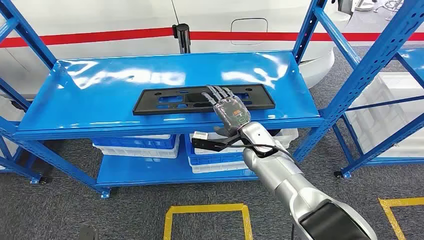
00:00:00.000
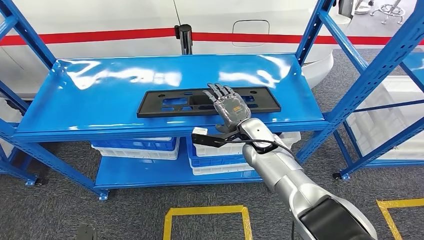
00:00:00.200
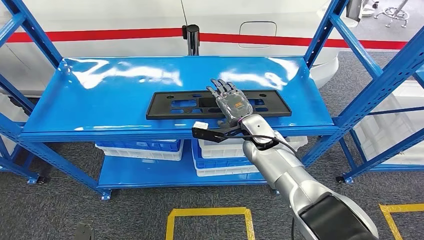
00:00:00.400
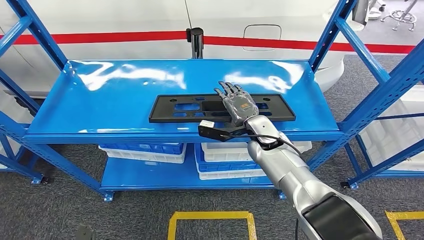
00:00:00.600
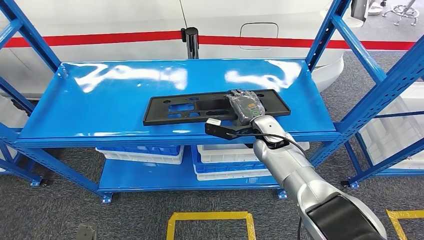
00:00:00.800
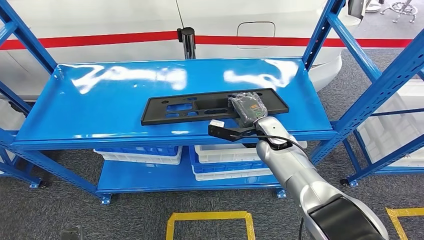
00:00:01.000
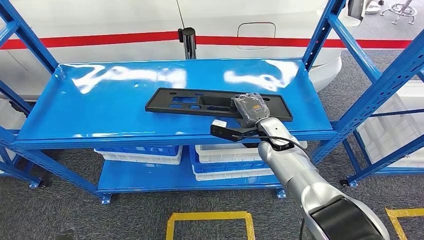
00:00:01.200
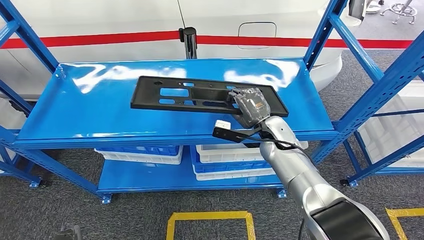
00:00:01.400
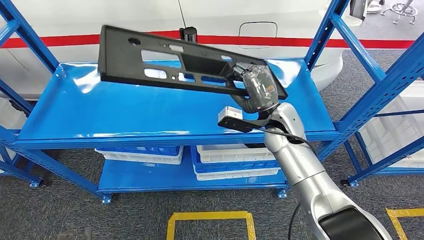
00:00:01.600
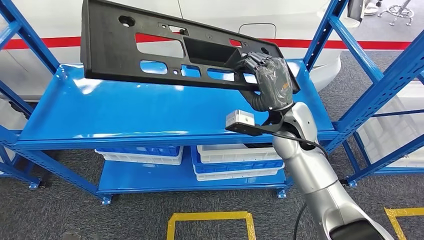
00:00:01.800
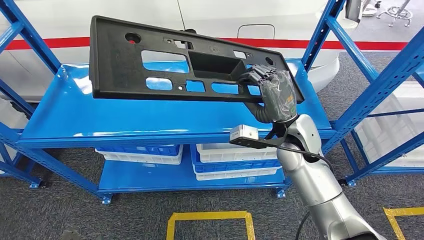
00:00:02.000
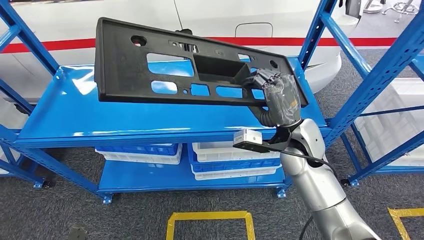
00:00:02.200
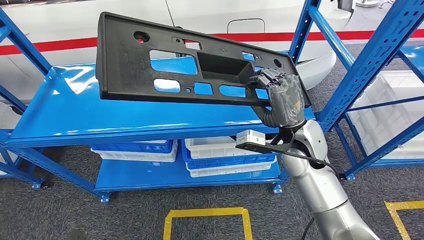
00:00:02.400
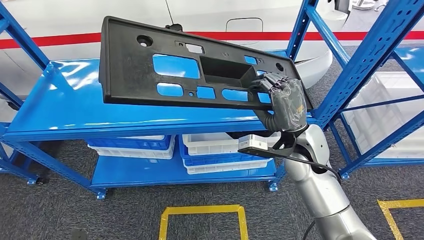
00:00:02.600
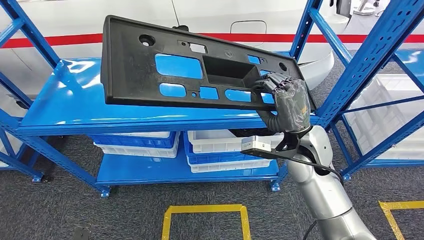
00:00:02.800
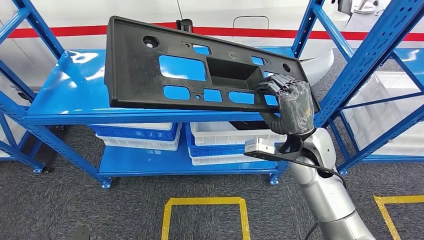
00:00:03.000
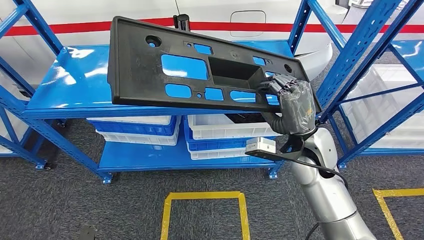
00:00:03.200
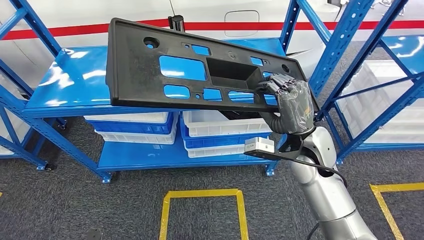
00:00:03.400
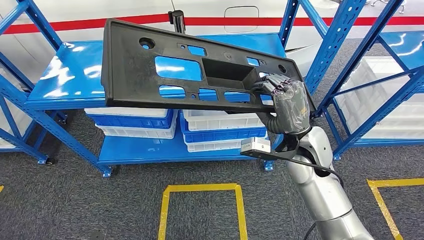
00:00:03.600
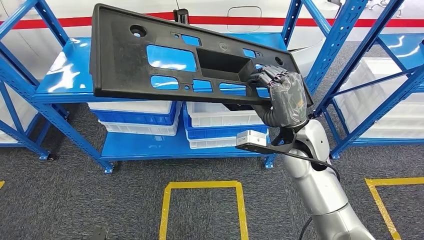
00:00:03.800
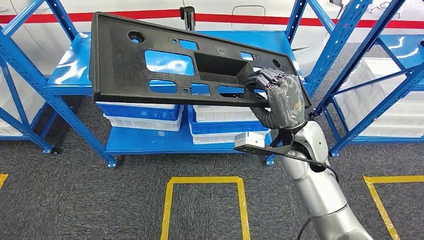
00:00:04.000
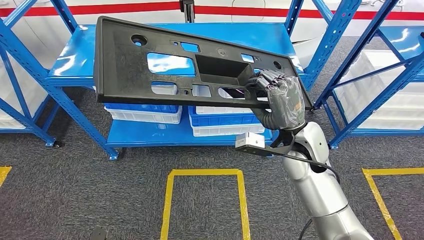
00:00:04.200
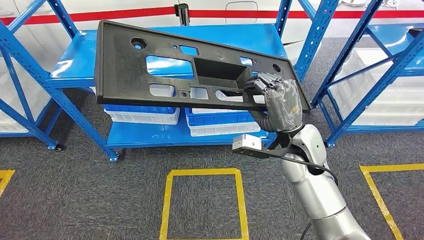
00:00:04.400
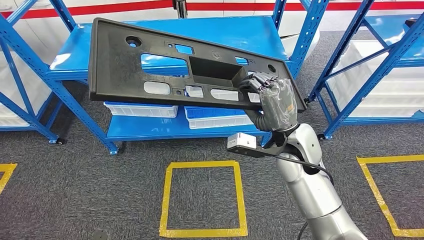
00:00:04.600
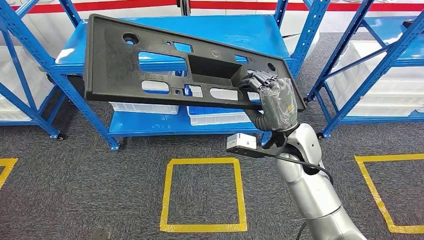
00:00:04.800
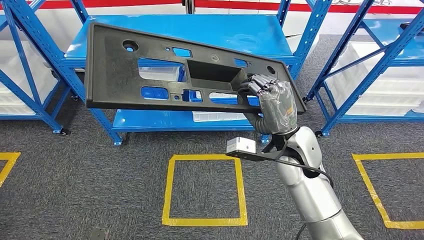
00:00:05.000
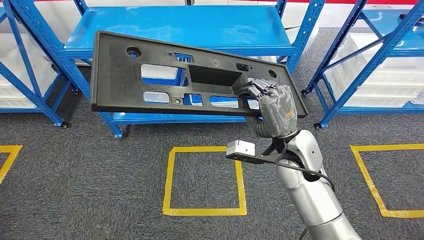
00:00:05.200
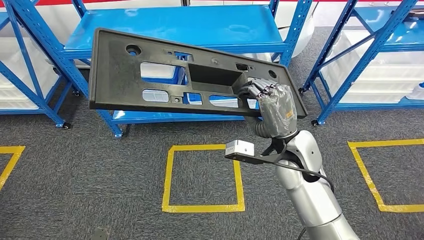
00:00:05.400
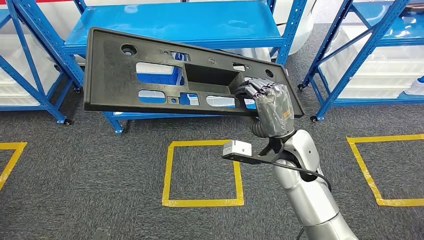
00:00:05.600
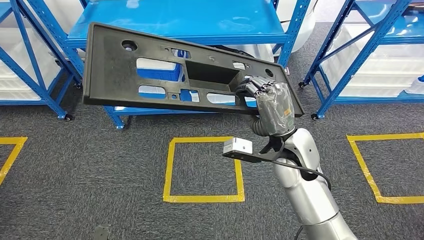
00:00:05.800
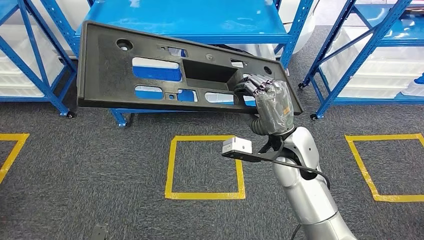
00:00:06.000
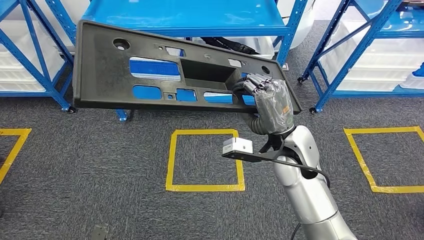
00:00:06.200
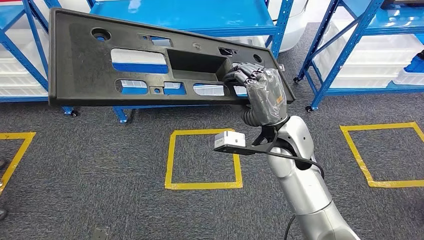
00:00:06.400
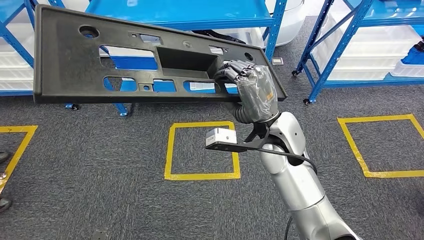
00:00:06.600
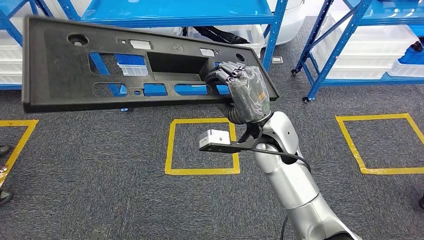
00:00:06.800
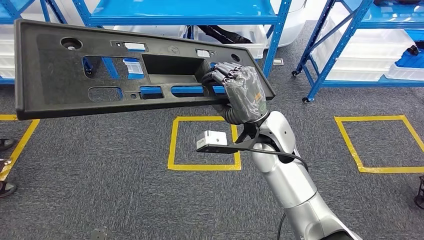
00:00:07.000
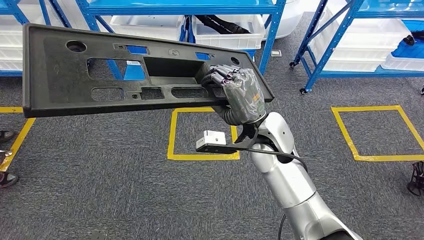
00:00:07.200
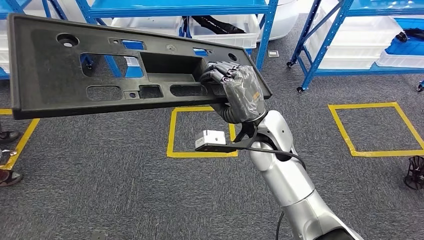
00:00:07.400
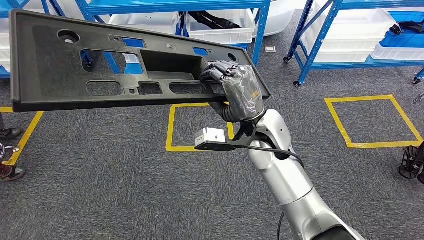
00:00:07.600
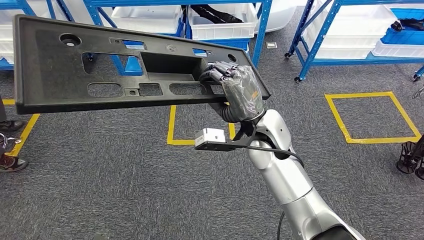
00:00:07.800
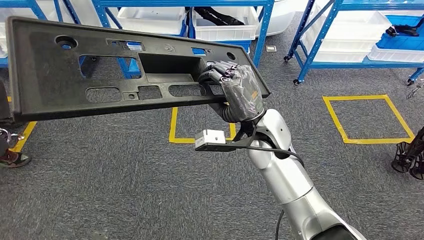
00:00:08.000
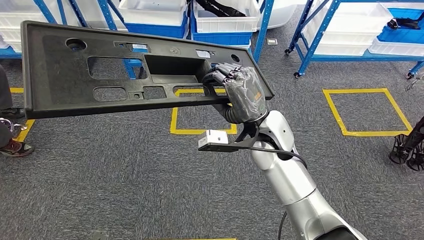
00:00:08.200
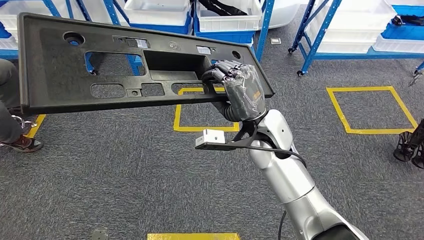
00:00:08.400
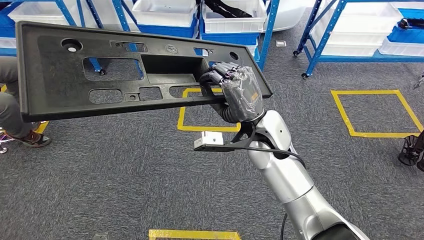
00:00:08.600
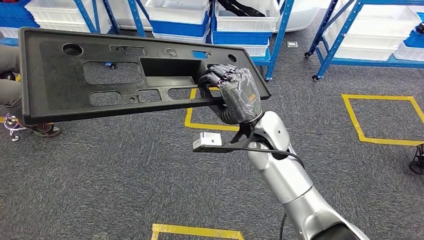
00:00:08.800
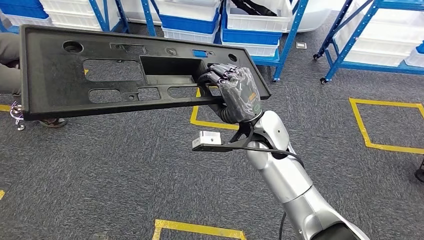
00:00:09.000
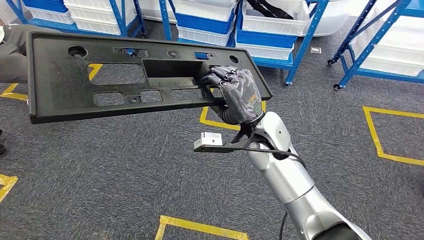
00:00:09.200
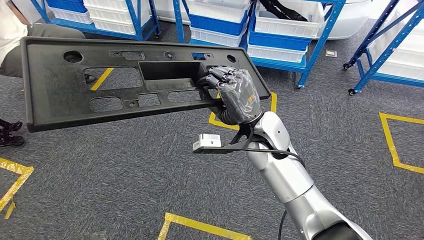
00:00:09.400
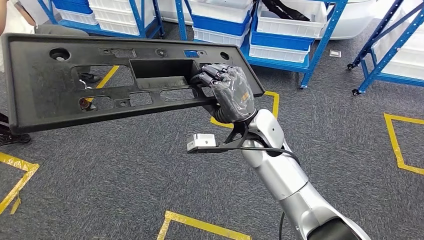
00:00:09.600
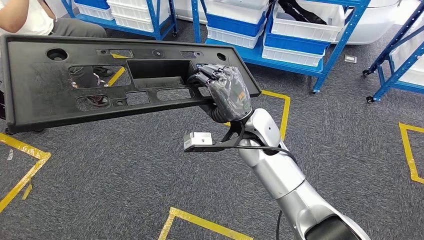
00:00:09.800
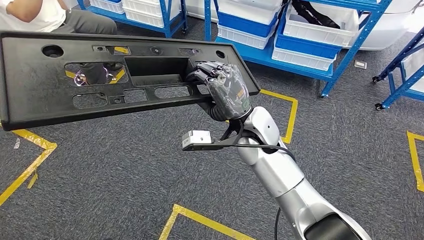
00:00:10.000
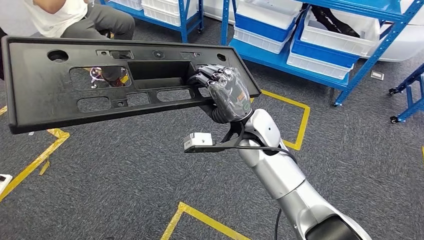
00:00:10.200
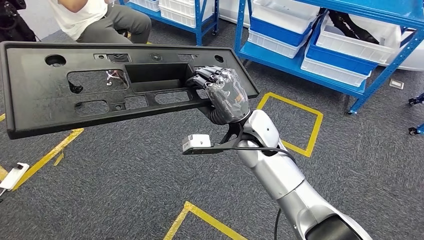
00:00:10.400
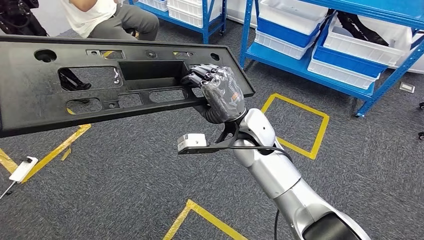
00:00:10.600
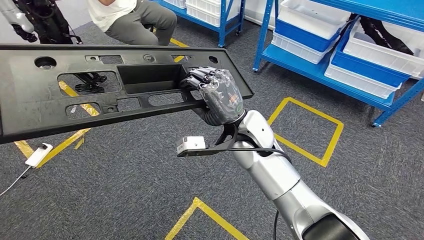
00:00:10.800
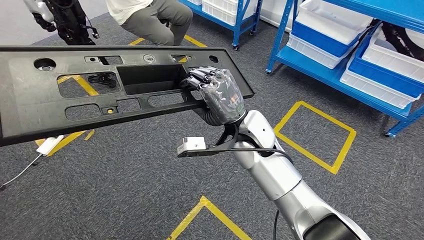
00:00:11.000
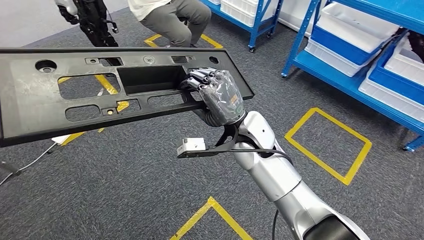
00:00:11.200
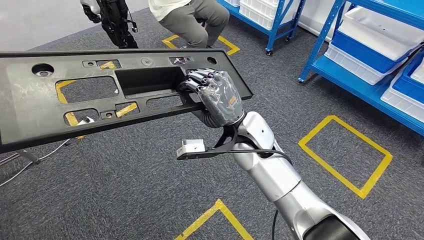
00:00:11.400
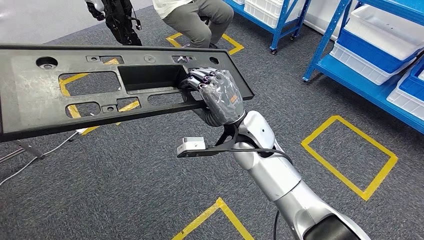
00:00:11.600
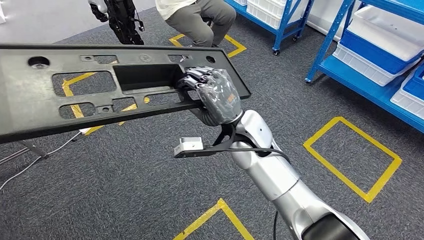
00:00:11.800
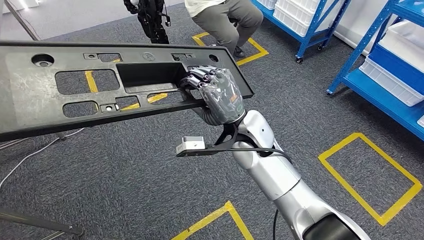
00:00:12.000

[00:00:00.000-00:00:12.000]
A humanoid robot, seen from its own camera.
Step, 00:00:00.000 to 00:00:04.000: Pick up the large material from the shelf.

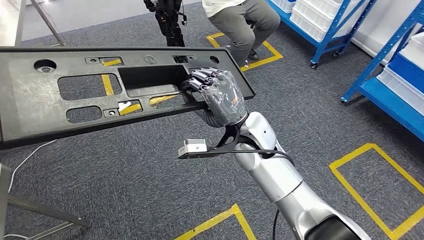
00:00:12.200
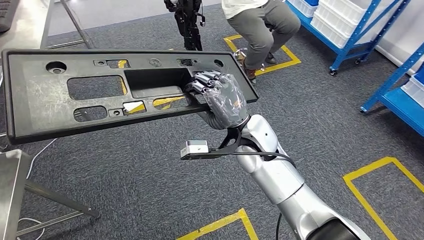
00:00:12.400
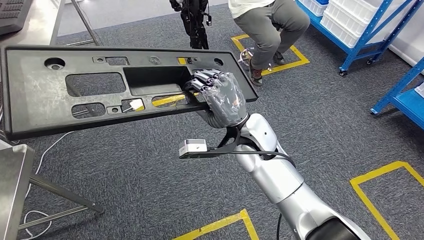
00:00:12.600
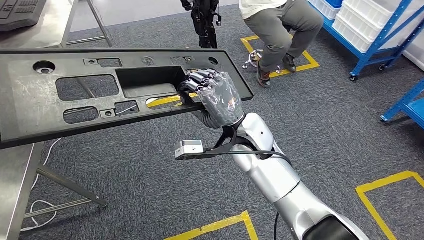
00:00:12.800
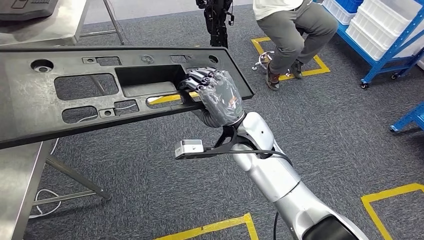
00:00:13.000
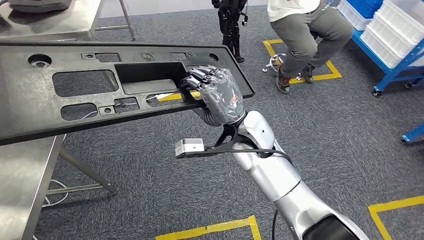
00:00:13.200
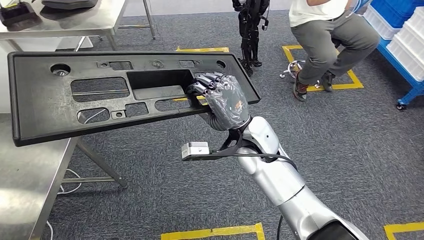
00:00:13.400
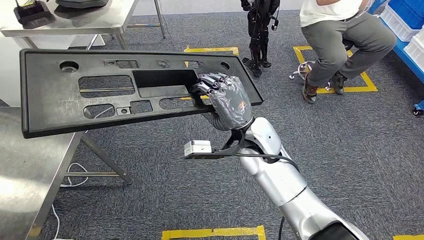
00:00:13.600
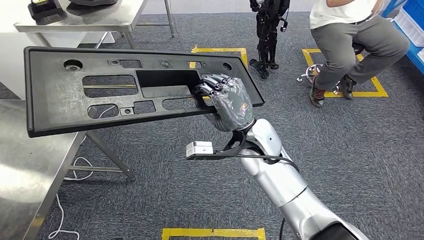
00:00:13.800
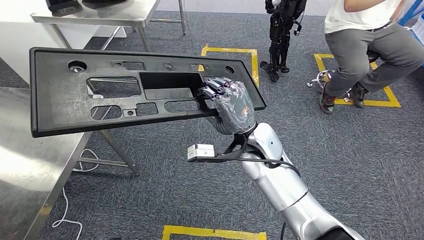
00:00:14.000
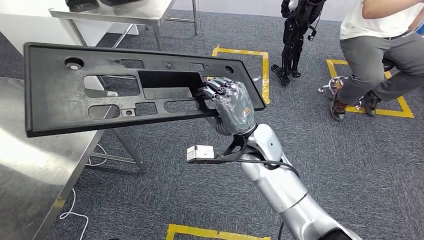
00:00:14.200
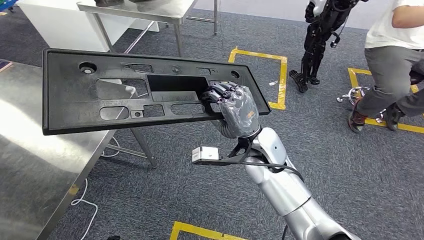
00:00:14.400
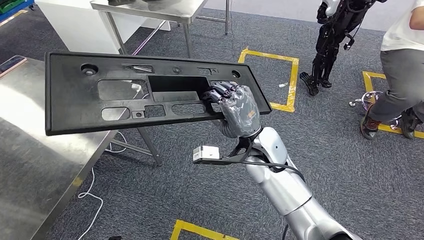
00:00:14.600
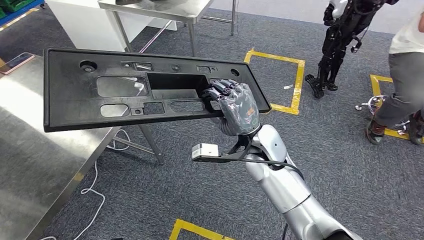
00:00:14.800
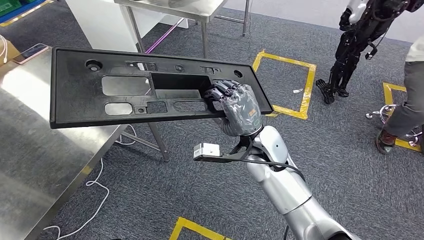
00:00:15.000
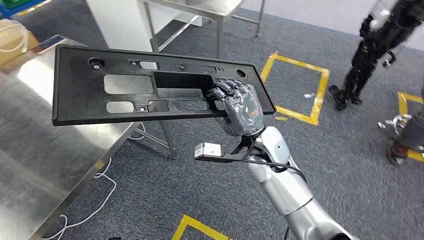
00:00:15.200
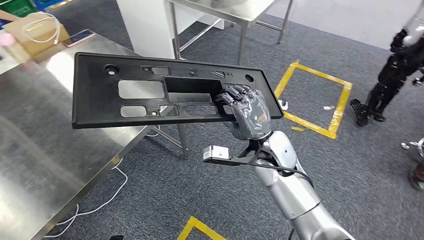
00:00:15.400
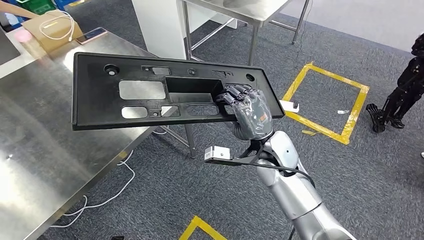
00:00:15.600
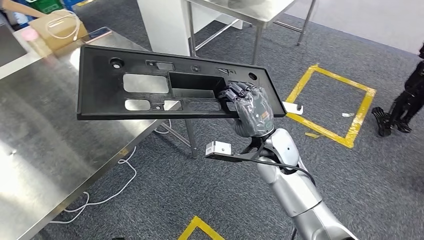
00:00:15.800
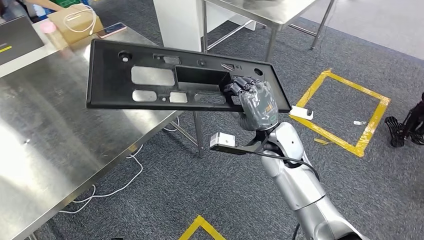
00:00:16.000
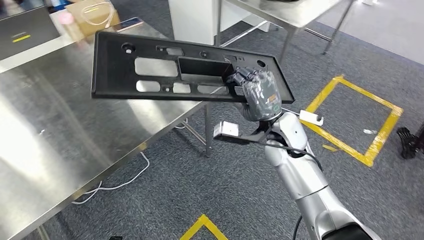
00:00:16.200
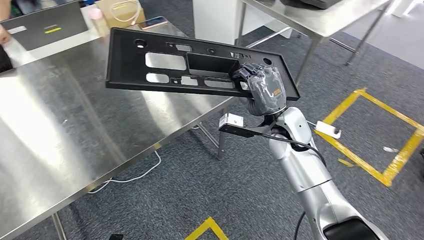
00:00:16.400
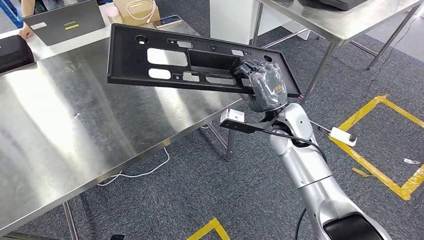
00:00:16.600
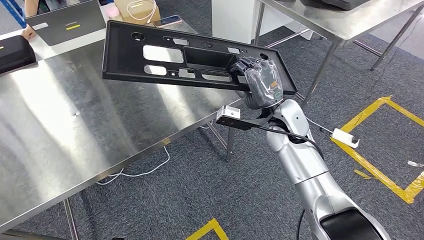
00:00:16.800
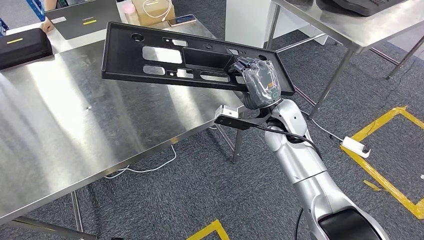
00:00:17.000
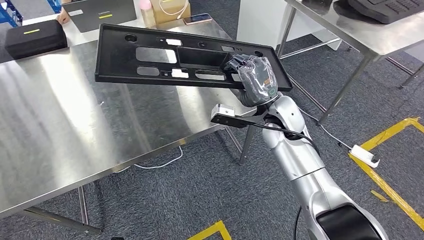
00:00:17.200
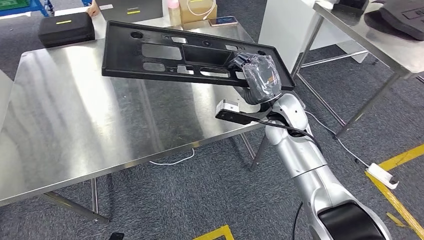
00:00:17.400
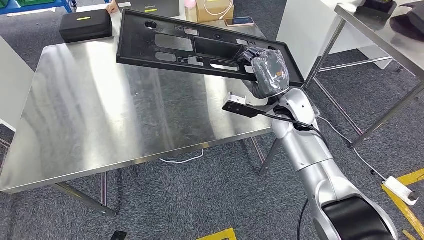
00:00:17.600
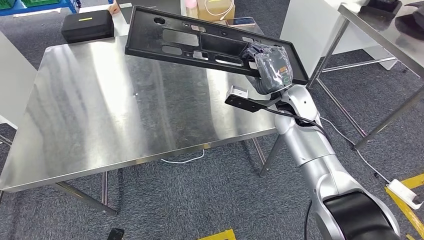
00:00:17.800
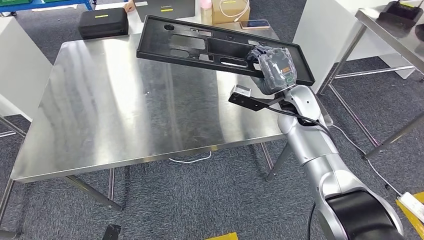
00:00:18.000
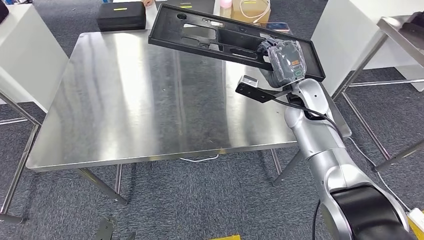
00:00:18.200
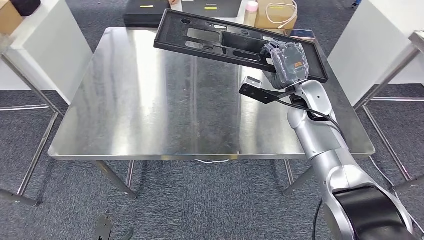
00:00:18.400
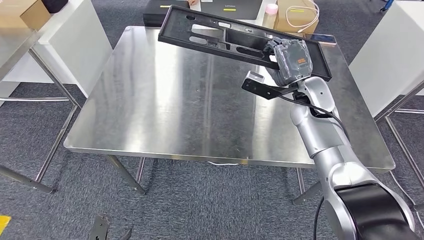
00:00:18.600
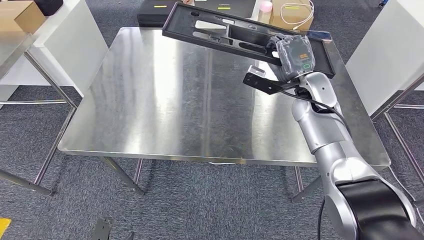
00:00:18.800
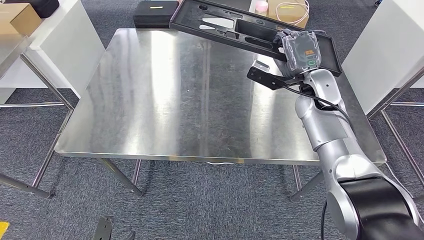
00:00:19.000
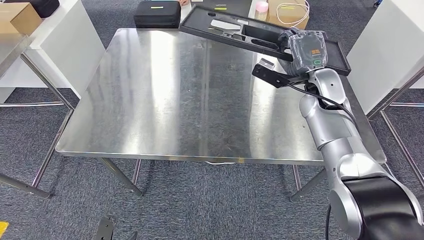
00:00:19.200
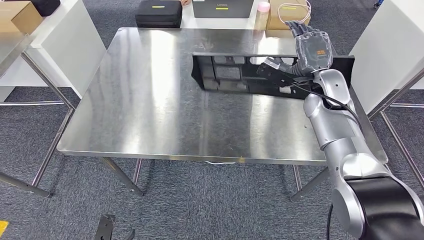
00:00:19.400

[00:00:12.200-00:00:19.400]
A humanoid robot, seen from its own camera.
Step, 00:00:12.200 to 00:00:15.800: Move the large material to the workbench.
